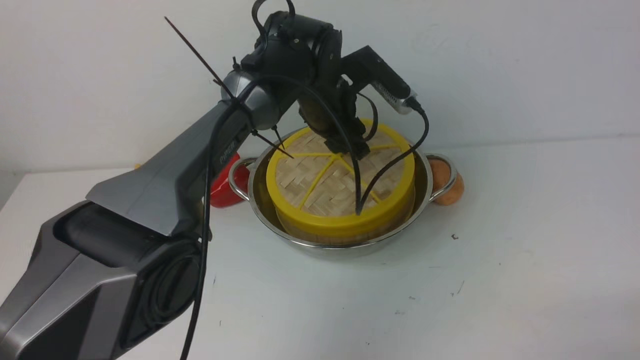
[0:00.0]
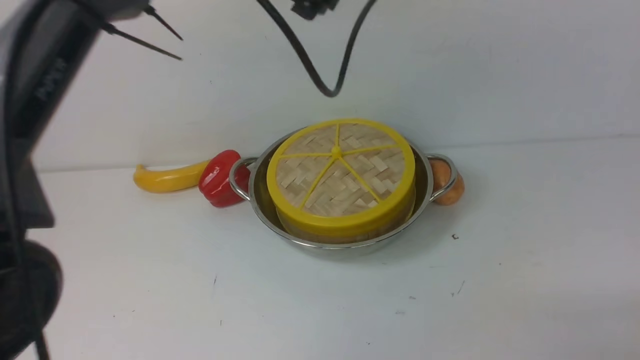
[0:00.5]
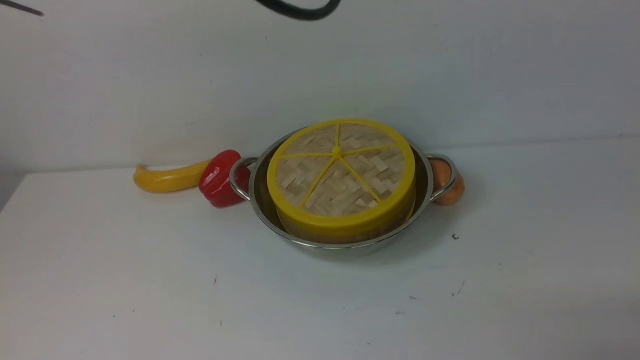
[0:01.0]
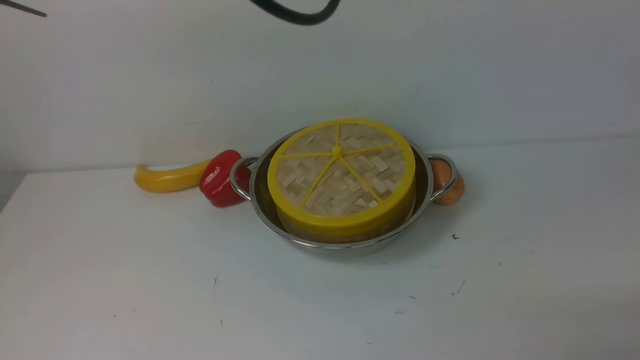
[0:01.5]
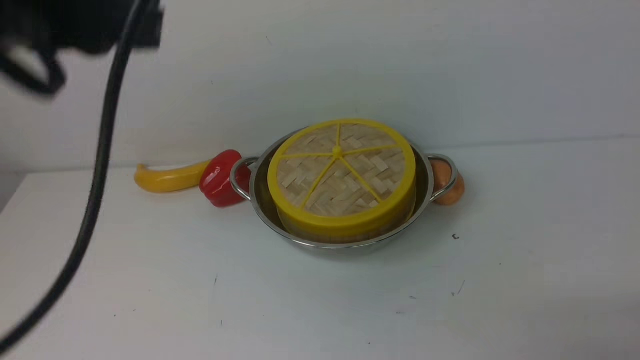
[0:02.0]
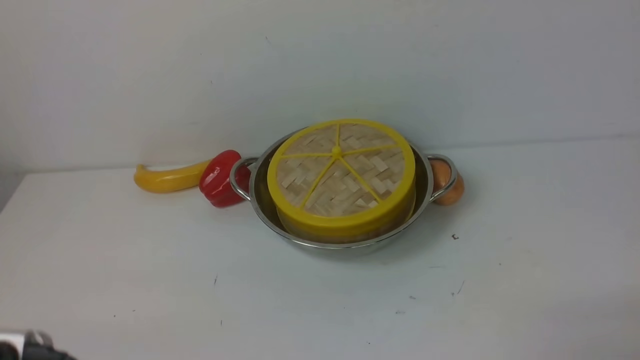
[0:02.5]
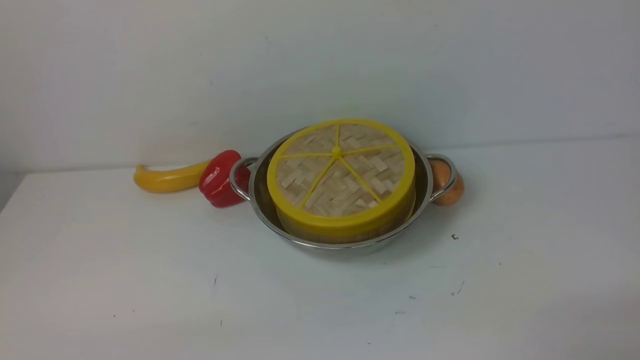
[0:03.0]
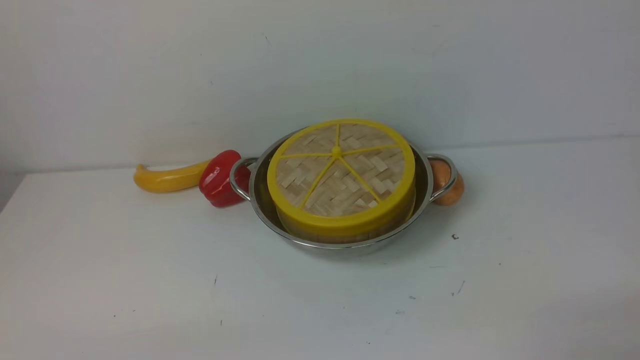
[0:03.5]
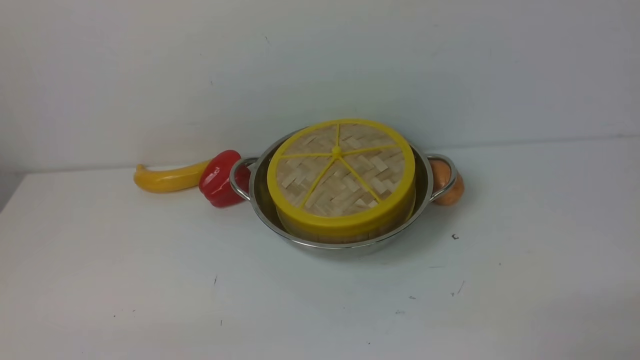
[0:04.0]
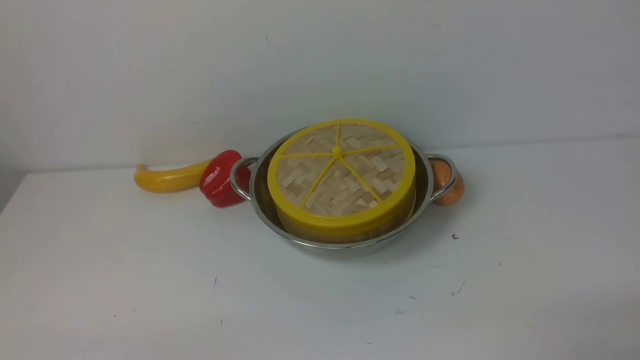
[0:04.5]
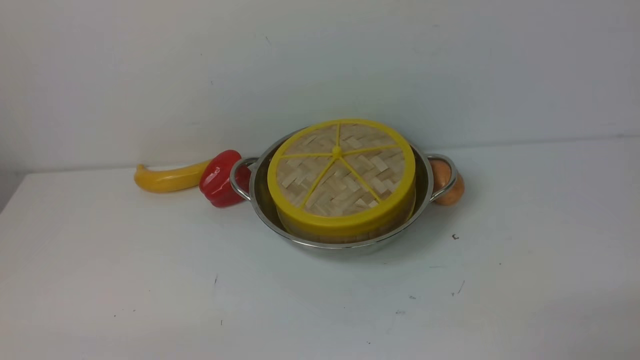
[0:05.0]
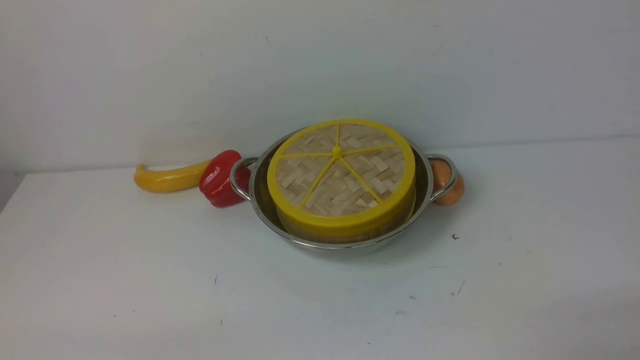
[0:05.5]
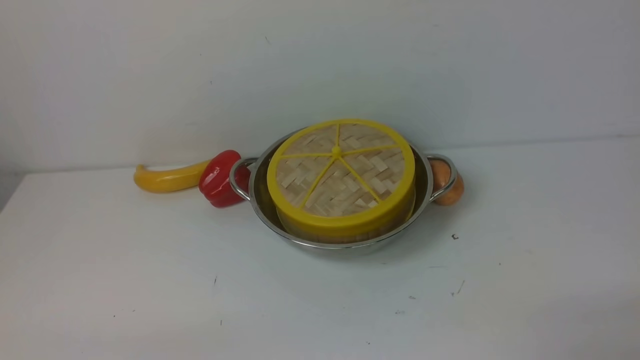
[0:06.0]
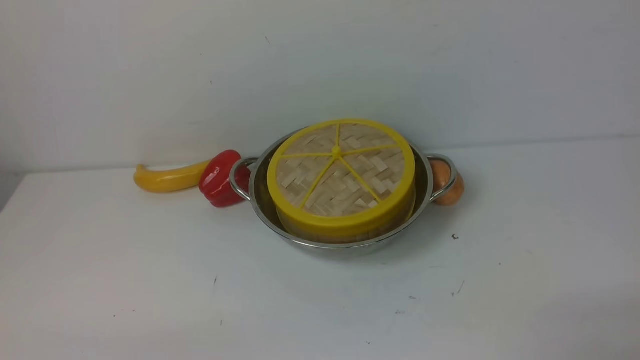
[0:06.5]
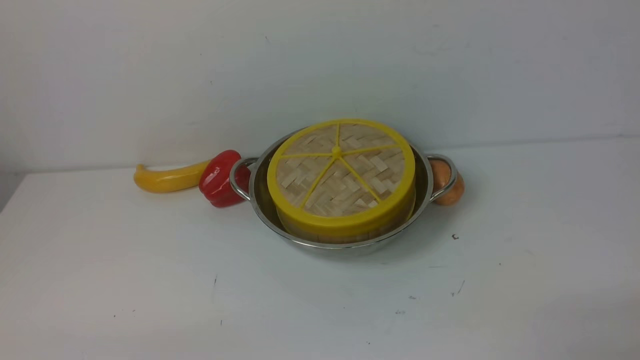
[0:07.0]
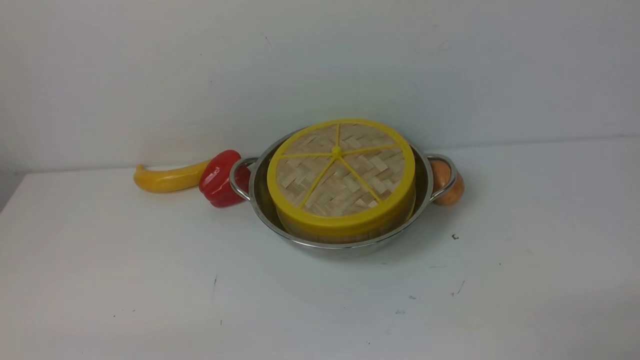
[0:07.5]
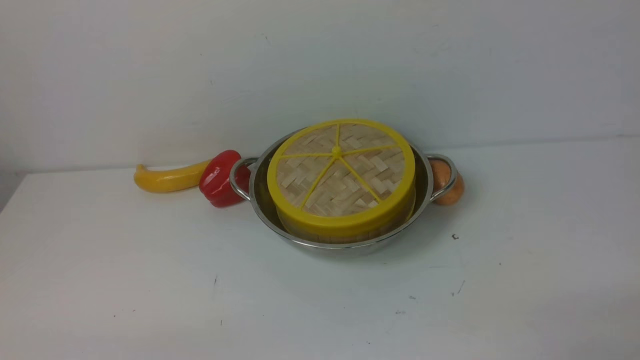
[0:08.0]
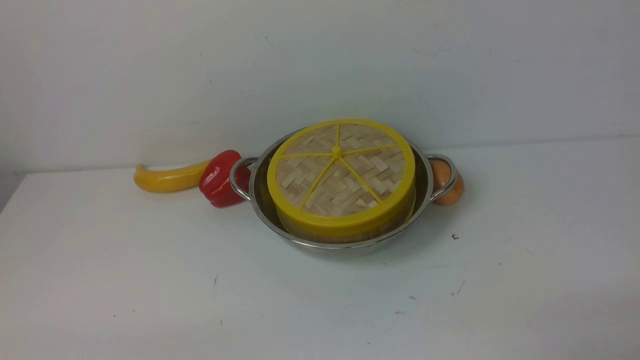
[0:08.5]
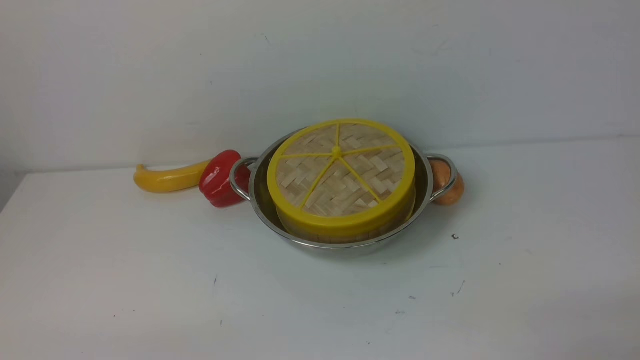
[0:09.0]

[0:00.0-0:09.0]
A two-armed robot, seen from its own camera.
Task of the whole recording: place the steamer in the pot on the white table, and put the lid on the steamer.
0:00.0 to 0:02.0: The left gripper shifts some 35 cm backward, upward and to the left, and closes its fingers.
0:02.0 to 0:04.5: The left gripper travels downward and backward by approximately 30 cm.
0:04.5 to 0:07.0: Neither gripper changes place.

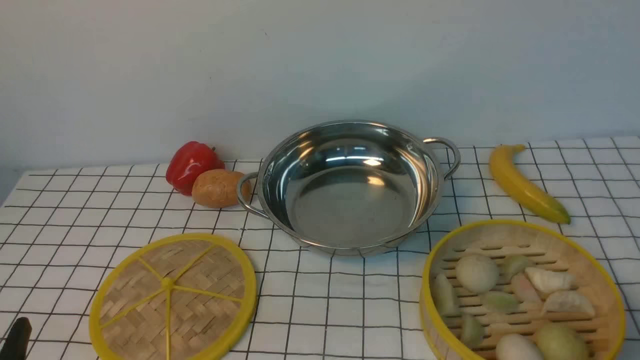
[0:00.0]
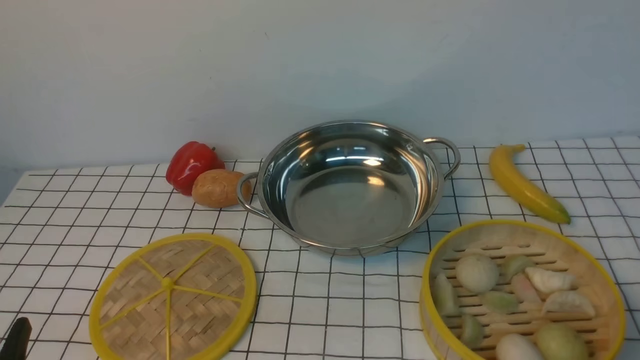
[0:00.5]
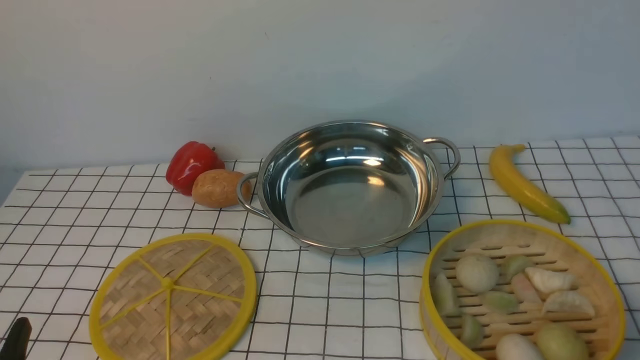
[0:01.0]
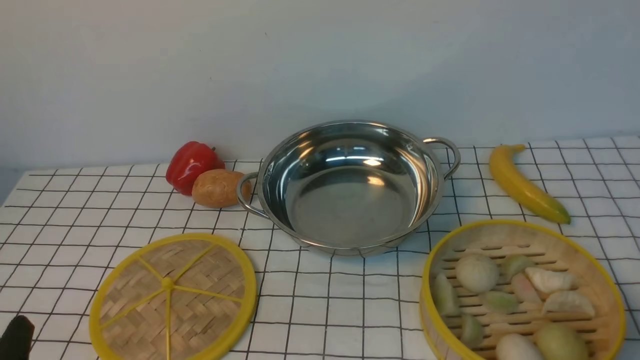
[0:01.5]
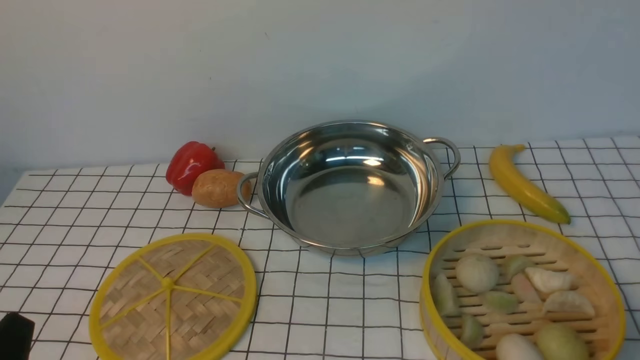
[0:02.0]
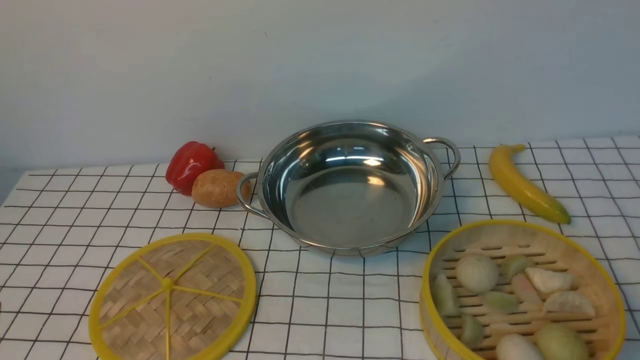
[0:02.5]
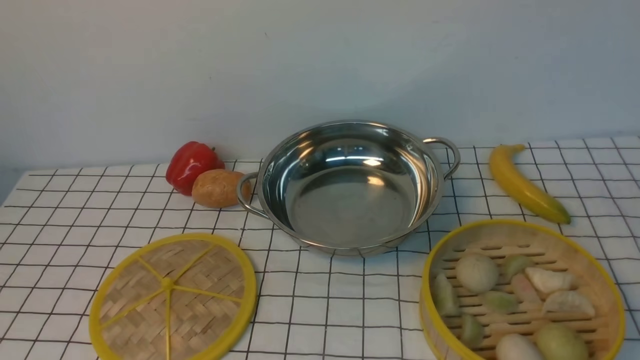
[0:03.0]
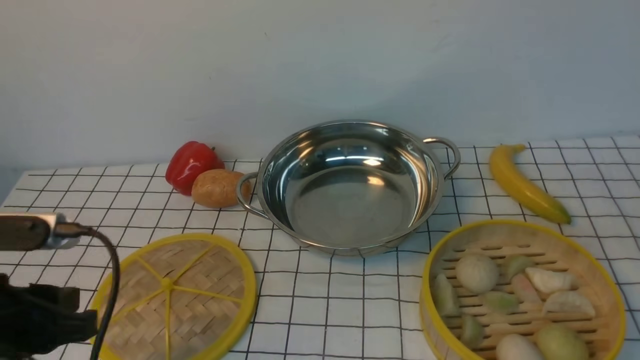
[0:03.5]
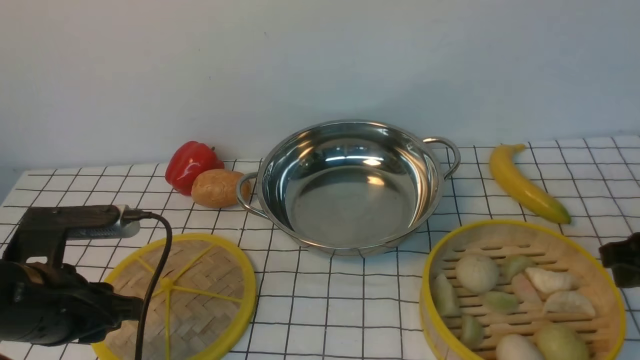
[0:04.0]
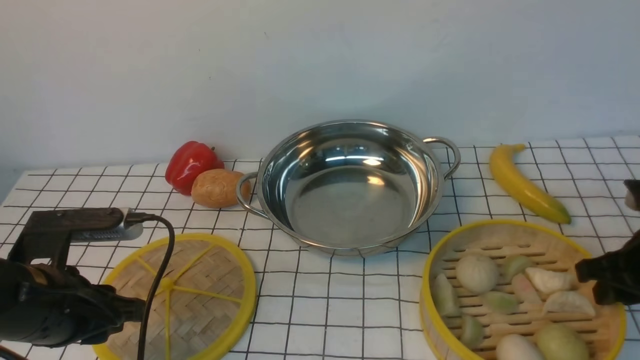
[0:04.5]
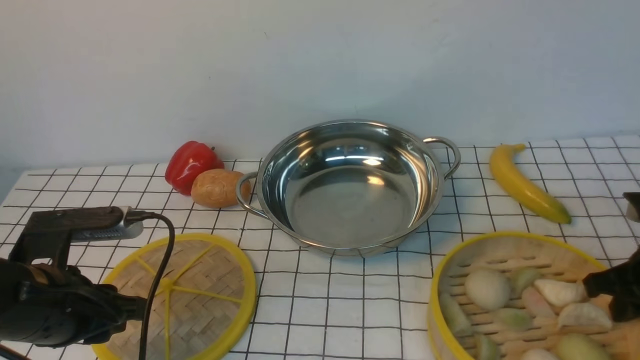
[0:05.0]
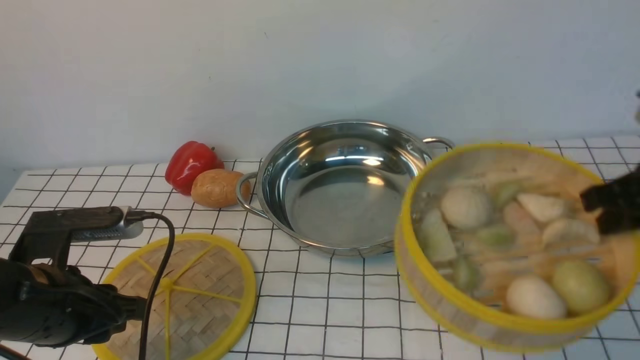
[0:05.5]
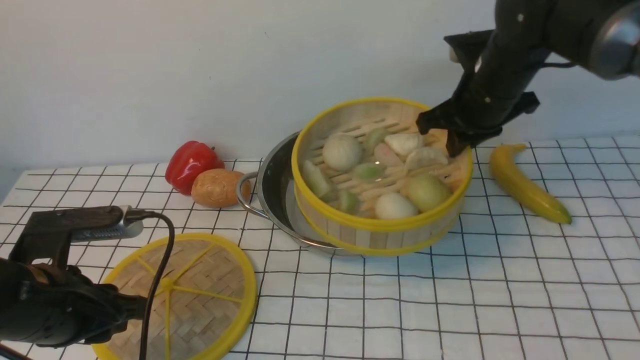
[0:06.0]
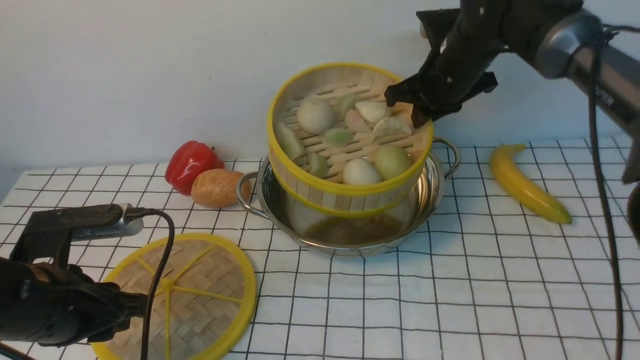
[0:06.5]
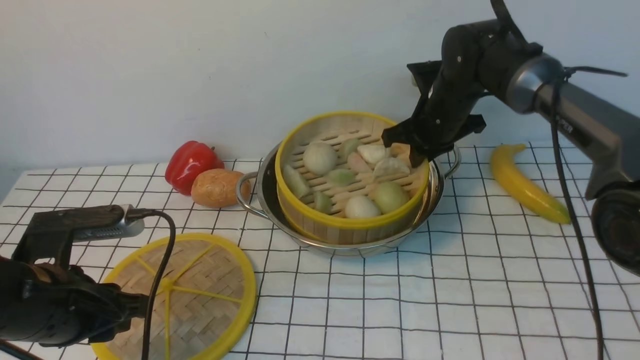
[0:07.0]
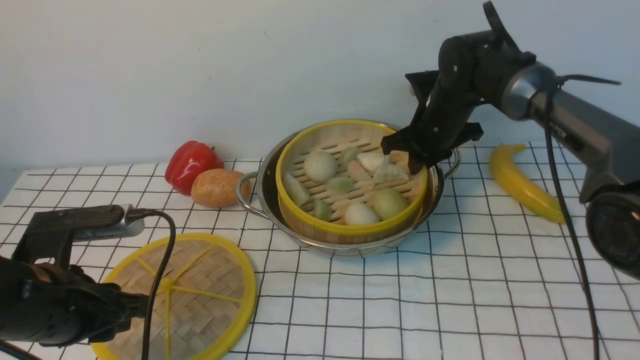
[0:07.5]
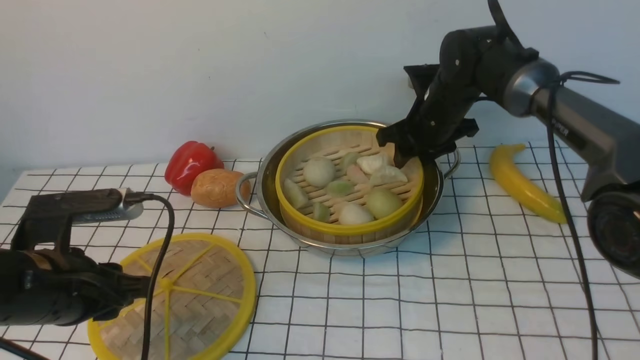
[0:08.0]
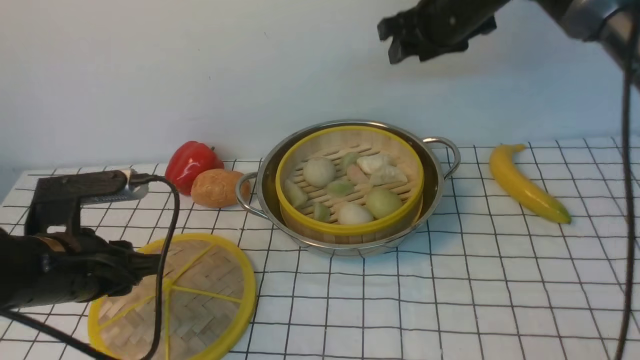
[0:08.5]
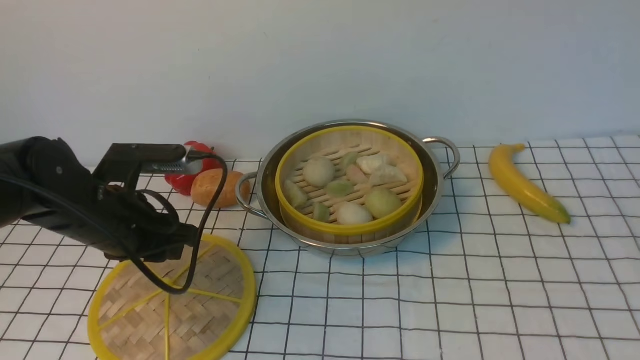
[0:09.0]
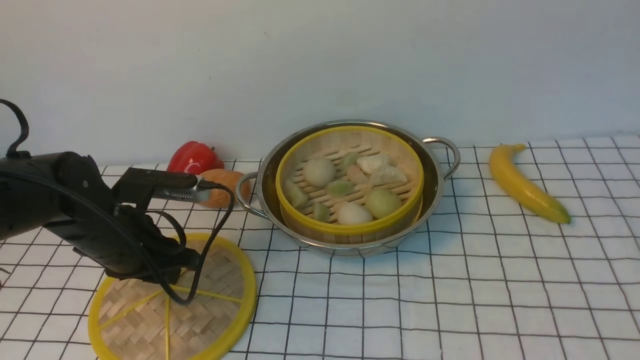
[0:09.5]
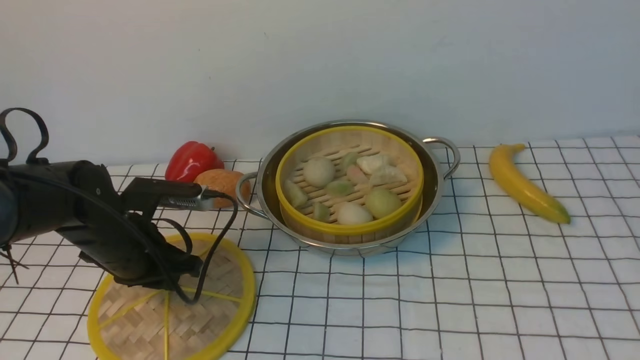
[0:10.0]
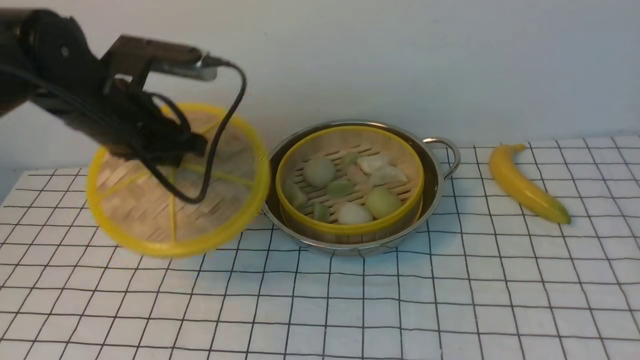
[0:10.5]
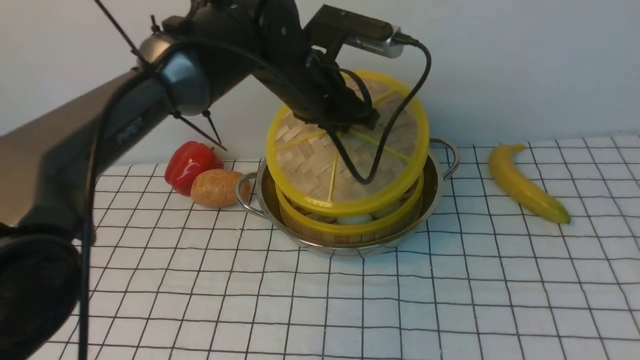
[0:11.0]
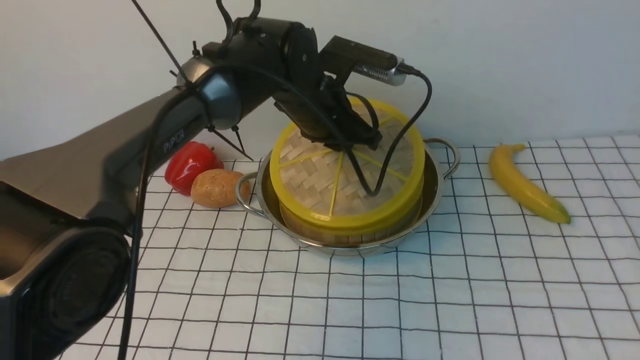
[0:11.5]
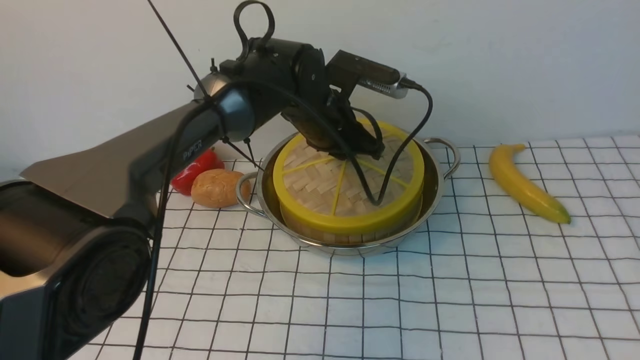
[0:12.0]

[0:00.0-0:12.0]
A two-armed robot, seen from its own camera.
Task of the whole recording: place the steamer in the pot on the white tablecloth, and put the lid on the steamer.
Step, 0:00.0 to 0:05.0: use the right arm to lift the steamer closest to it.
Step, 0:05.5 to 0:08.0: use the right arm to put the steamer into the iron steamer pot in the middle.
Step, 0:08.5 to 0:10.0: use the left arm to lift the lid of the steamer.
0:02.0 to 0:04.0: The grippers both shift forward by roughly 15 cm.
0:04.0 to 0:06.0: The right gripper travels forward and to the left by approximately 25 cm, and closes.
0:06.0 to 0:08.0: The right gripper moves downward and forward, some 10 cm, and opens up.
0:08.0 to 0:10.0: The right gripper is displaced backward and upward by approximately 50 cm. Meanwhile the left gripper goes approximately 10 cm forward.
0:10.0 to 0:12.0: The left gripper heads to the right and forward, covering about 25 cm.
